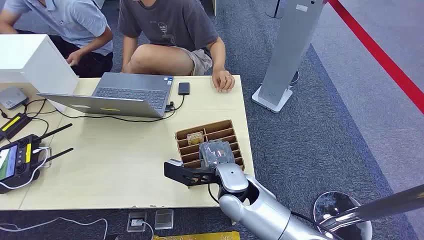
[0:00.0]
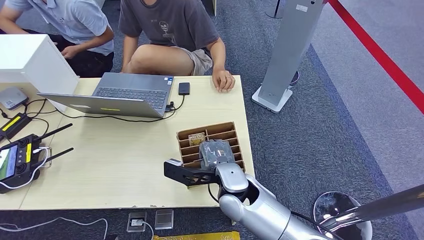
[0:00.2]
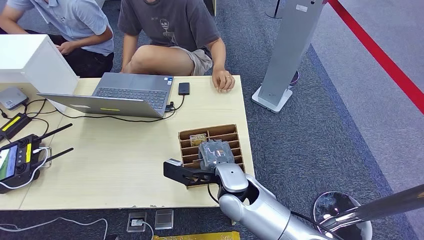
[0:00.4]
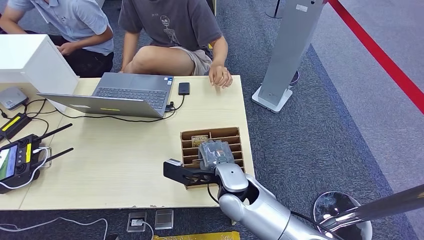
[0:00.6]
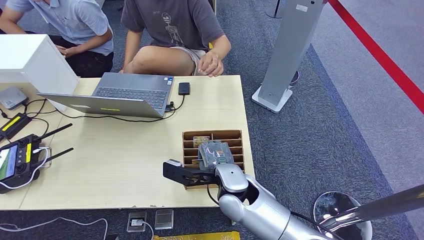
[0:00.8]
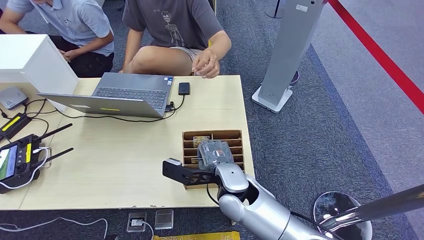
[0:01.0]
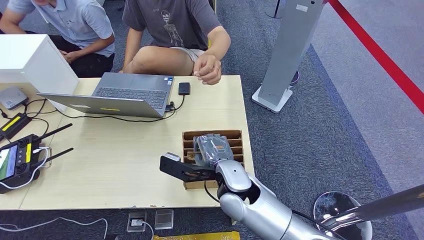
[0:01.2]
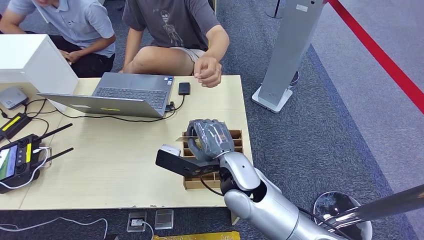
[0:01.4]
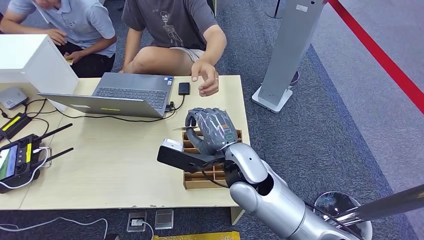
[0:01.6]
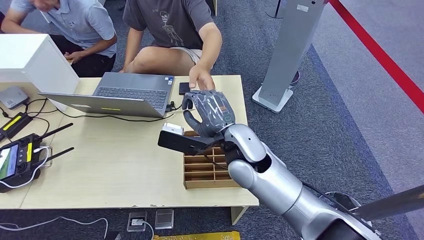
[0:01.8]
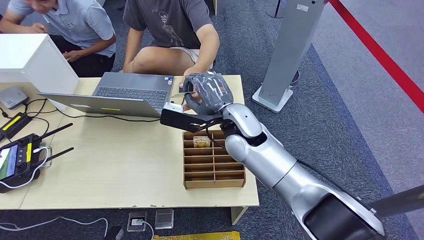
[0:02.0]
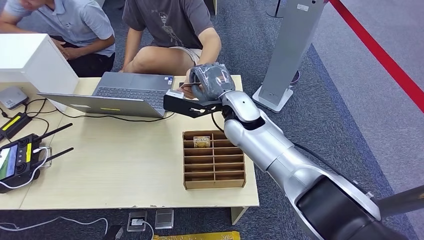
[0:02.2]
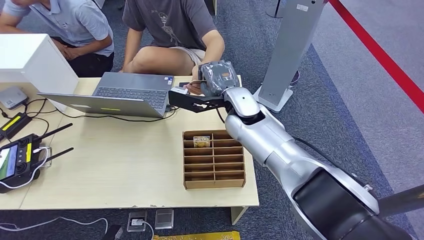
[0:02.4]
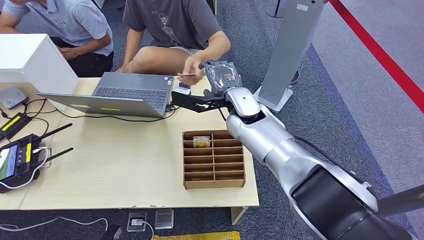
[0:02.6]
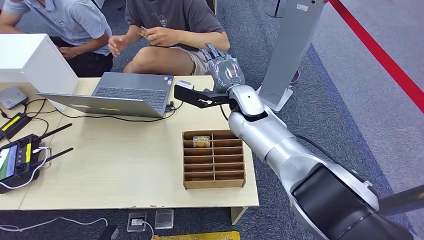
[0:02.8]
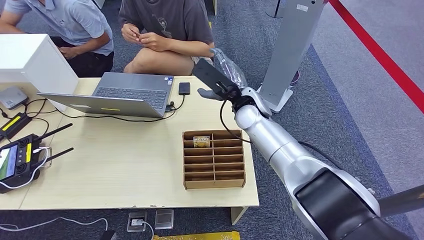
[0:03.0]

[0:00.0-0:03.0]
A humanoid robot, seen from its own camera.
Task of the whole recording: Pick up the card and hand it over to the target person.
Step, 0:00.0 to 0:01.4: Pick up the key card from the card box.
Step, 0:01.8 to 0:03.0: Hand the key card to the target.
